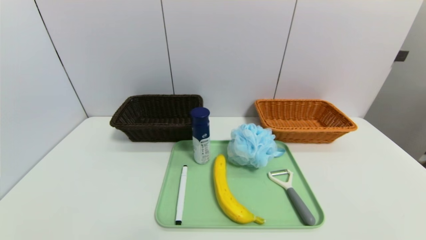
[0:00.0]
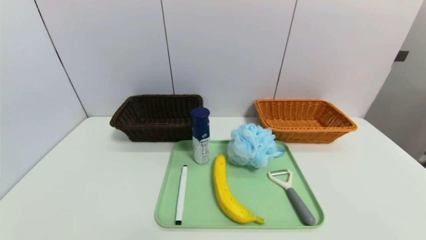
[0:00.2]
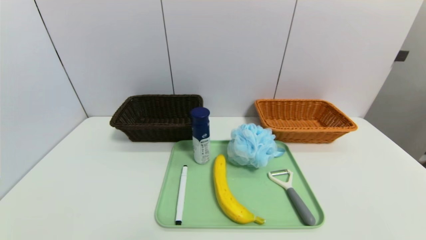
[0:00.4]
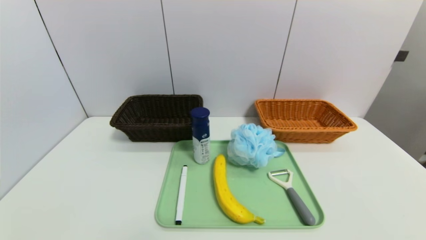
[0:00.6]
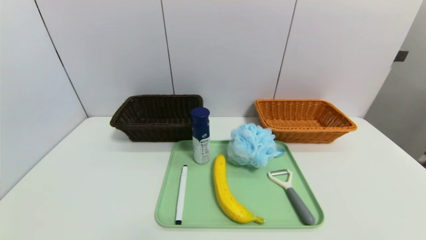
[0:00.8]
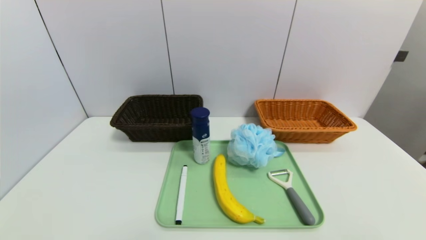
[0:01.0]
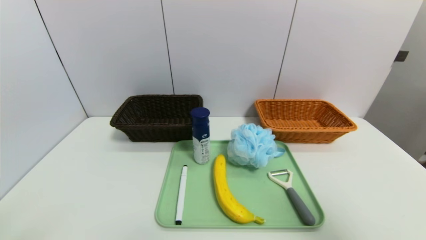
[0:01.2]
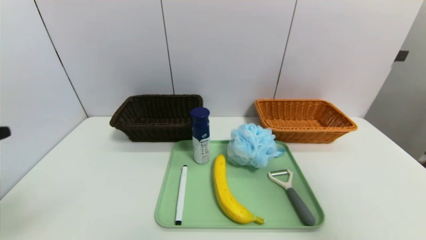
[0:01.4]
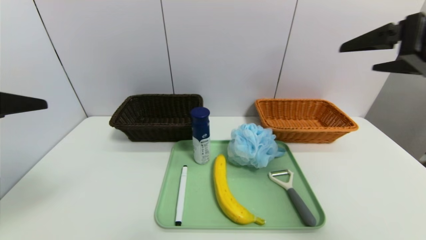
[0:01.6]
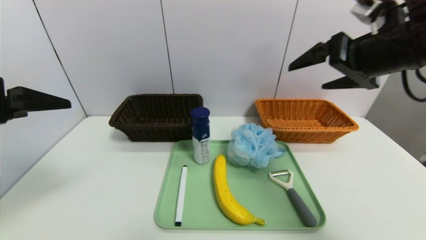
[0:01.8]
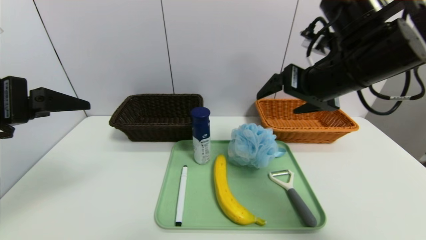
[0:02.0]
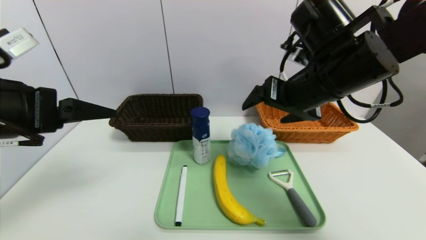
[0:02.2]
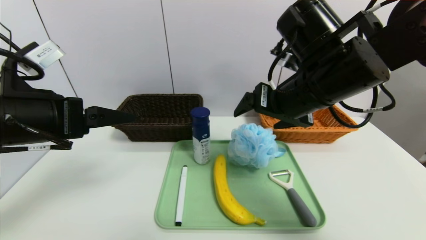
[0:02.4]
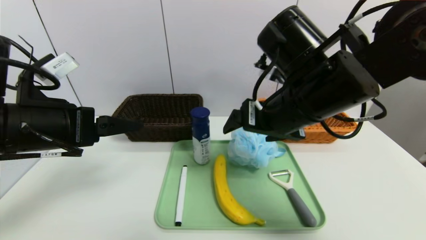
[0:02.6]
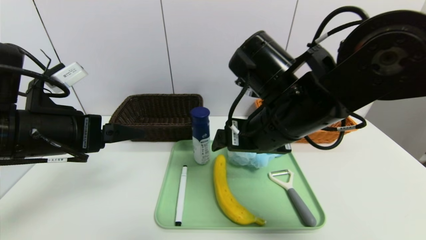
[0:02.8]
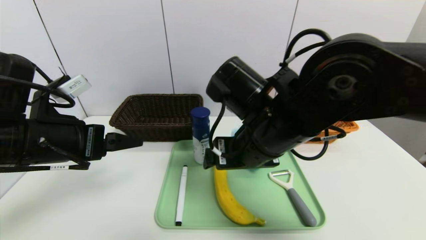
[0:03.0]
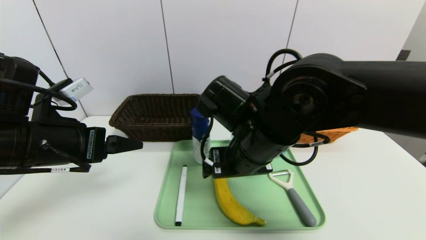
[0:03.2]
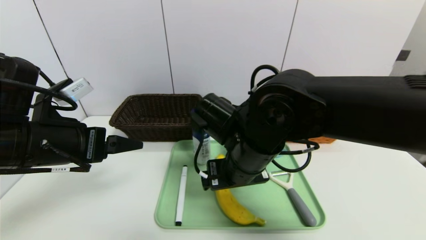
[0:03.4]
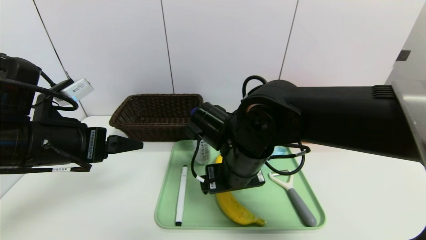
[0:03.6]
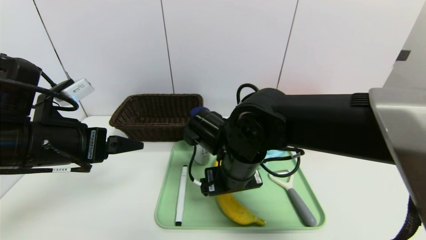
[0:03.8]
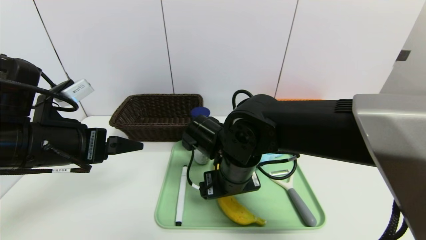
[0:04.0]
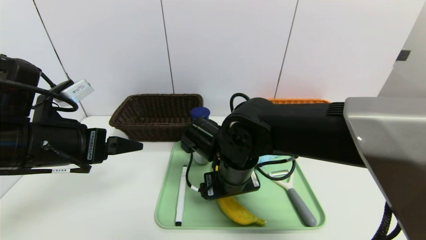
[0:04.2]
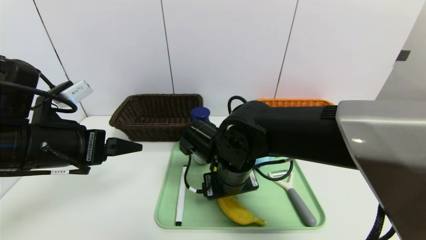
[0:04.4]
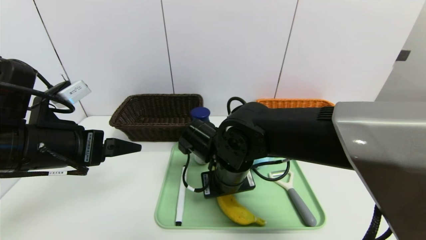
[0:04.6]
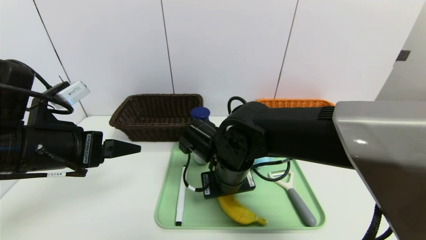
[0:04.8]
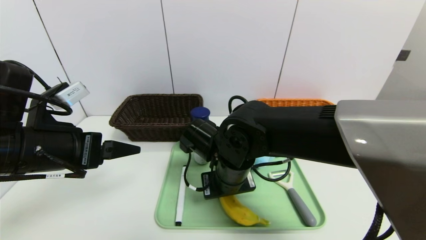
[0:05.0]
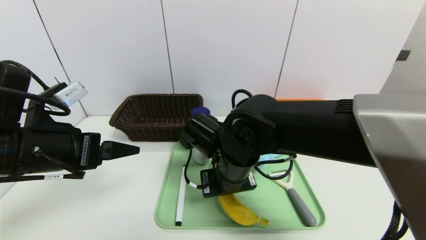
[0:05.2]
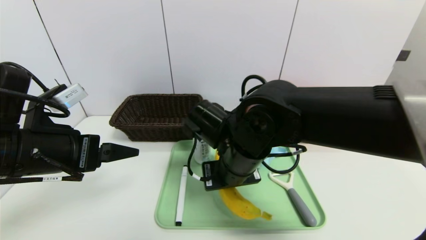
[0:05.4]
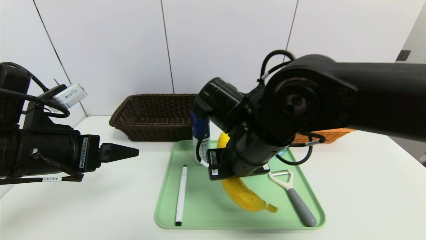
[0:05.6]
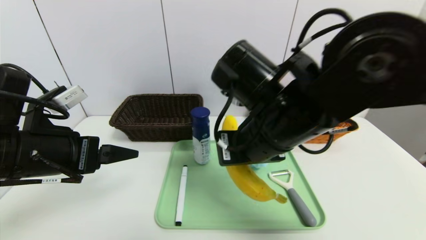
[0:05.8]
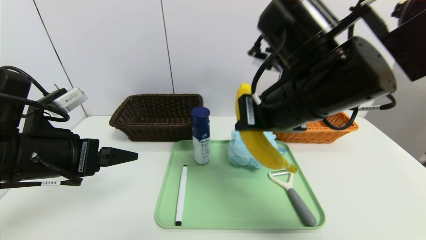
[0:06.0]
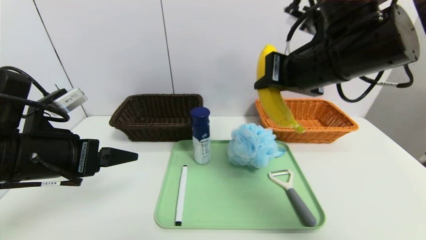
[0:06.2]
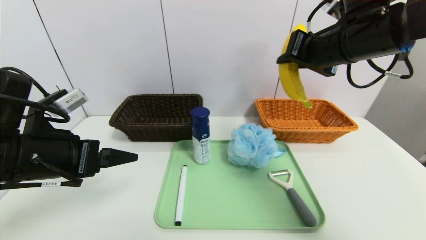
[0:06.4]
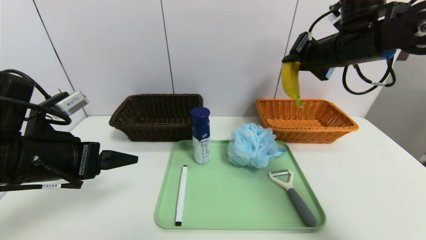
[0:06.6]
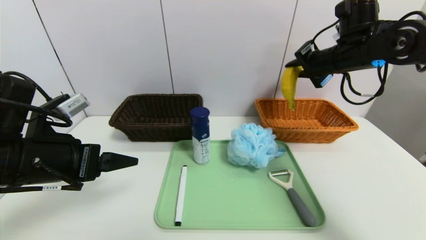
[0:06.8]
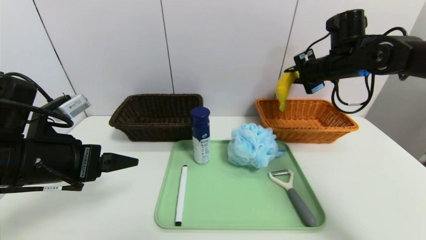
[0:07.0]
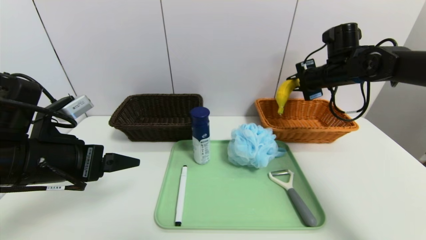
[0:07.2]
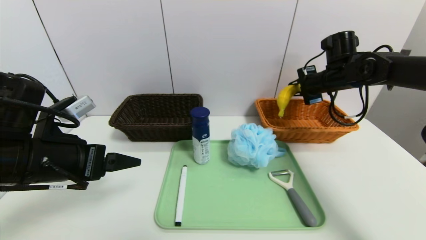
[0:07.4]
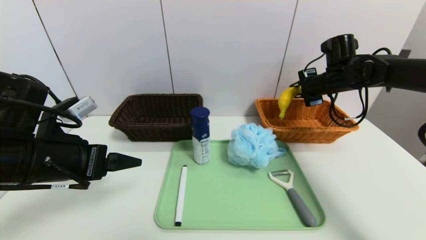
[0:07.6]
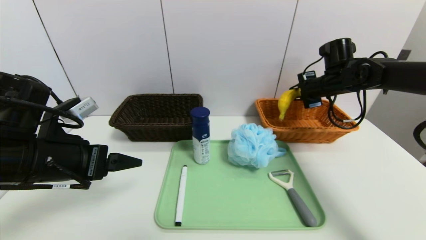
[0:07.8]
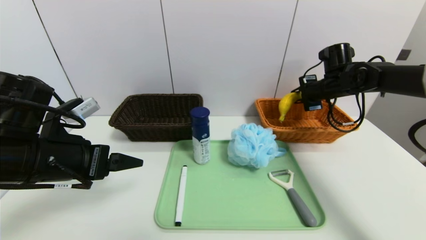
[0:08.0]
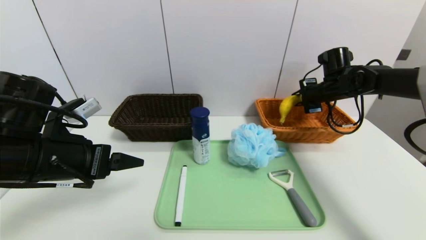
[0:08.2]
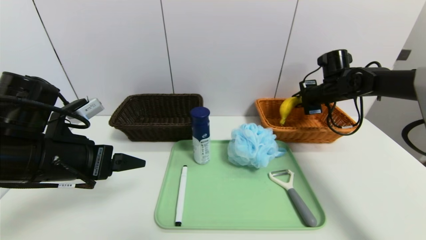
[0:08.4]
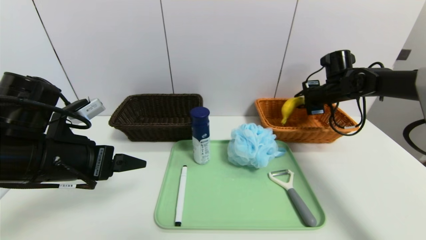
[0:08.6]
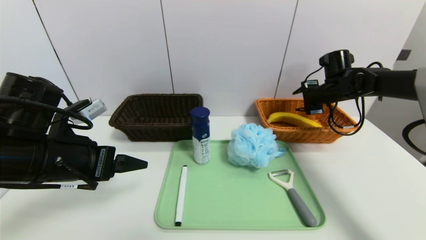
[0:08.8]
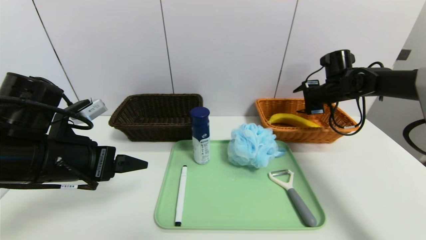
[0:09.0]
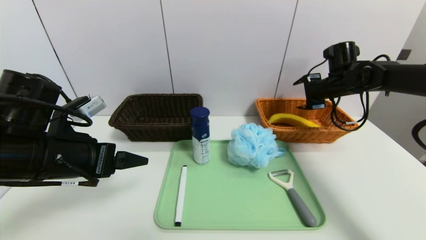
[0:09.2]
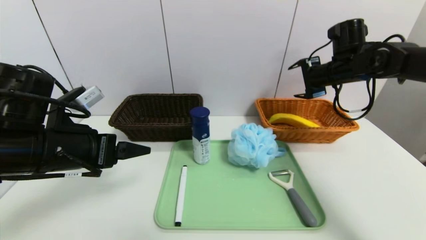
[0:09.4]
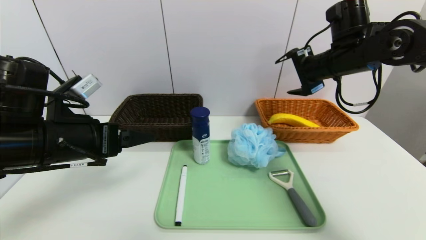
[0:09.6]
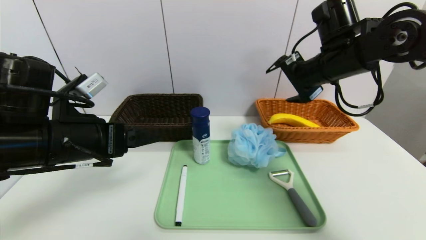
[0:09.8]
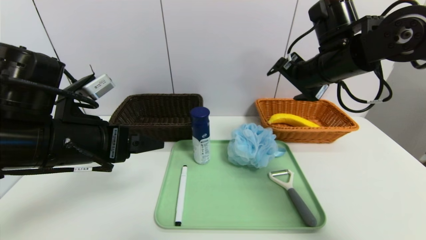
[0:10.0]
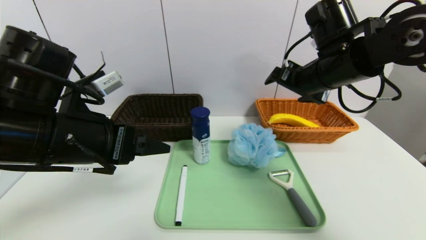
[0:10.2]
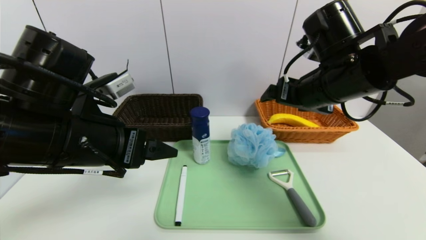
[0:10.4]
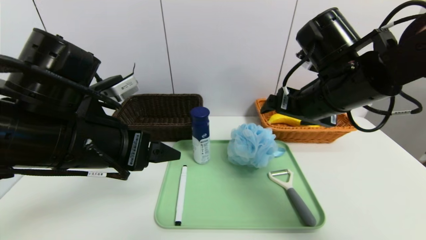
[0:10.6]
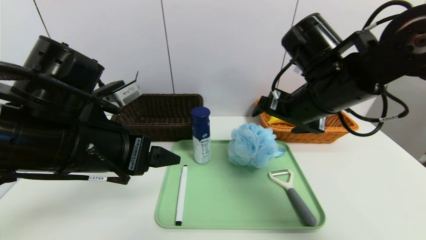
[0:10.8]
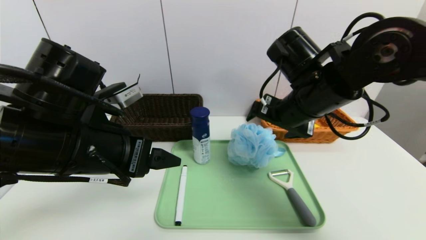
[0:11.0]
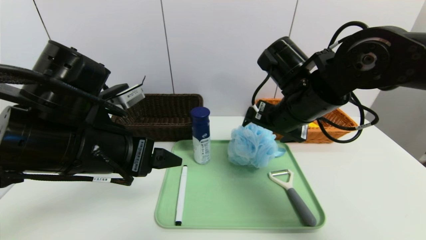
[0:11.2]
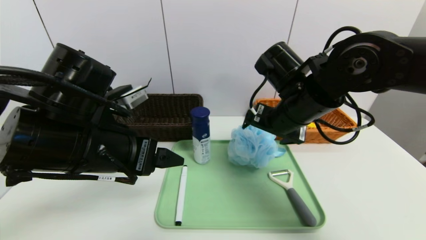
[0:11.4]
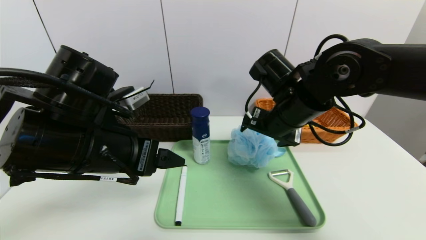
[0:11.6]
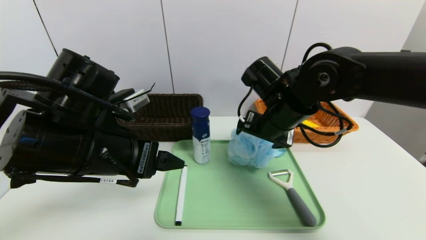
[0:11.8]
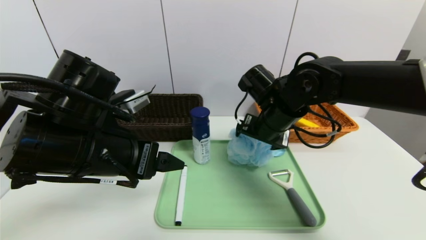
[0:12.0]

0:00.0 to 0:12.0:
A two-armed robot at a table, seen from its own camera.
Task of the whole recording: place the food in the right basket with the right gripper, and place the non food items in the left basket with the left gripper.
Step, 0:00.0 to 0:09.2: Grasp the banana and put it in the right basket.
0:00.0 to 0:01.6: The two grippers go roughly 35 cm upward and forward.
0:01.6 to 0:03.0: The right gripper is displaced to the left and downward by roughly 25 cm. Meanwhile the left gripper shifts approximately 15 cm downward, forward and to the right.
0:03.0 to 0:04.4: The right gripper heads downward, covering approximately 10 cm.
0:04.4 to 0:06.0: The right gripper travels upward and to the right by approximately 20 cm, and closes.
0:06.0 to 0:07.6: The right gripper is displaced forward and to the right by about 30 cm.
0:07.6 to 0:09.0: The right gripper opens.
0:09.0 to 0:10.4: The left gripper shifts about 5 cm to the right; the right gripper travels backward, to the left and upward by some 25 cm.
0:10.4 to 0:12.0: The right gripper goes approximately 10 cm downward, to the left and forward.

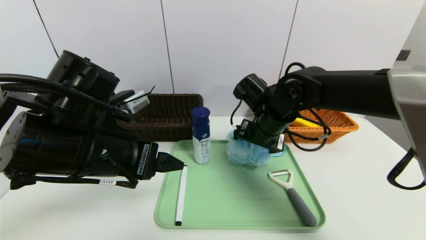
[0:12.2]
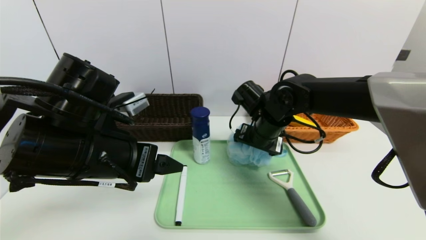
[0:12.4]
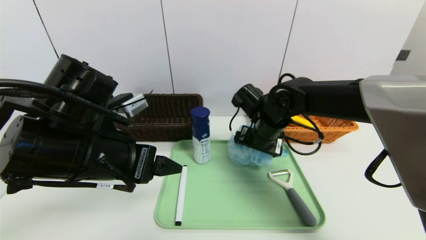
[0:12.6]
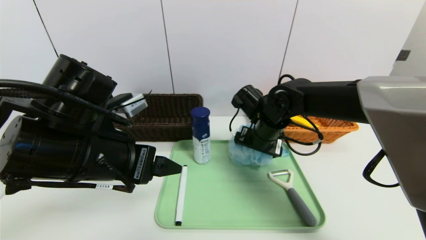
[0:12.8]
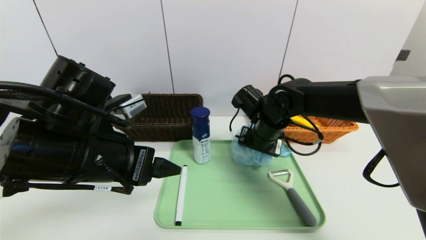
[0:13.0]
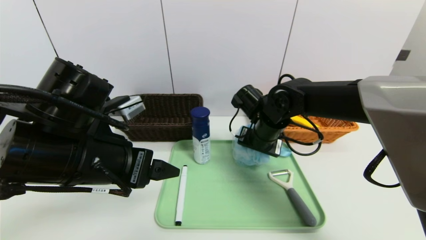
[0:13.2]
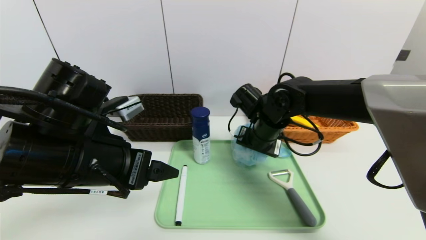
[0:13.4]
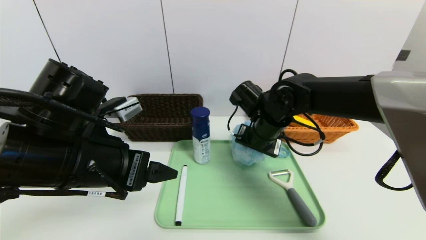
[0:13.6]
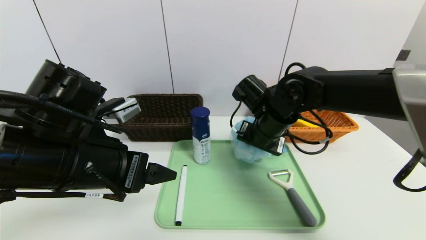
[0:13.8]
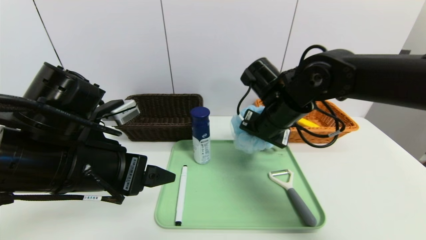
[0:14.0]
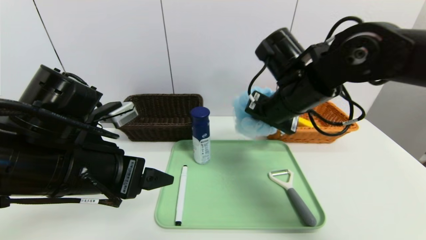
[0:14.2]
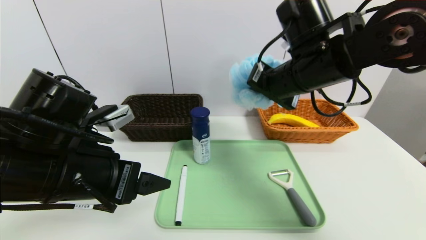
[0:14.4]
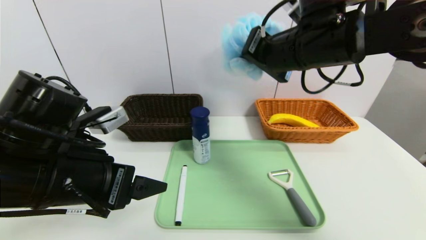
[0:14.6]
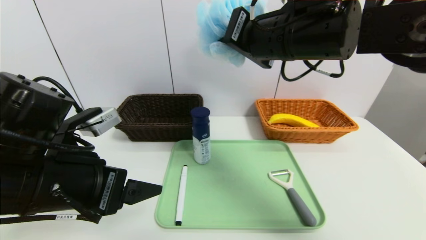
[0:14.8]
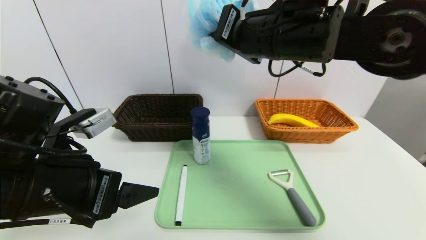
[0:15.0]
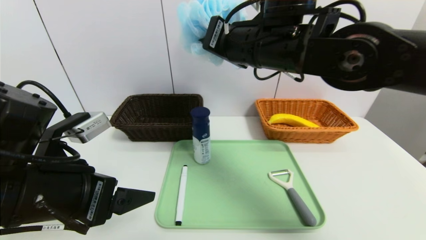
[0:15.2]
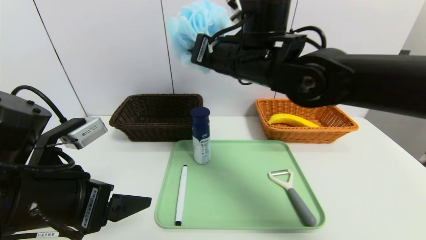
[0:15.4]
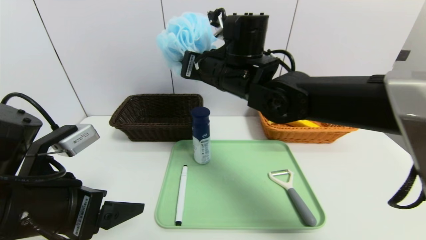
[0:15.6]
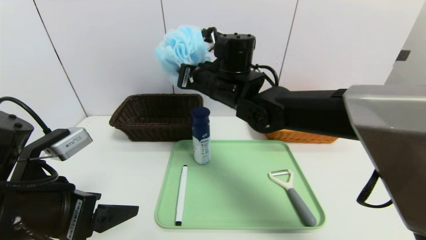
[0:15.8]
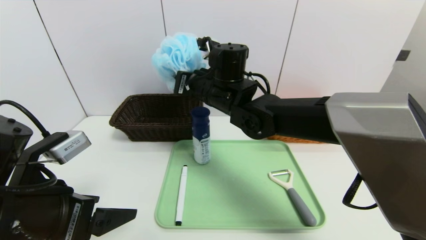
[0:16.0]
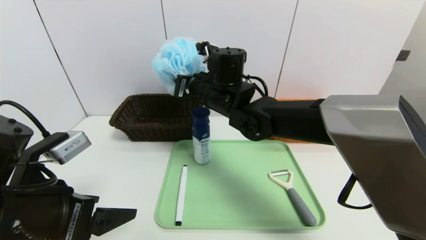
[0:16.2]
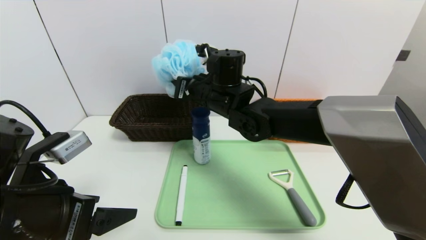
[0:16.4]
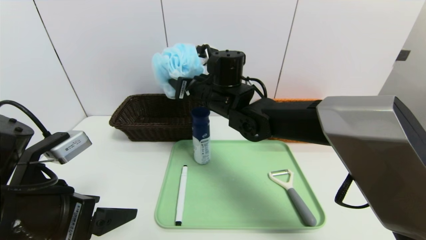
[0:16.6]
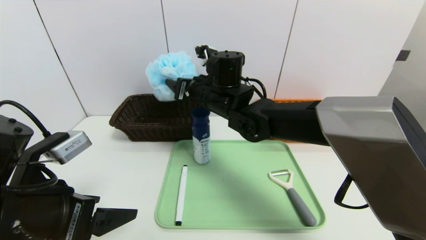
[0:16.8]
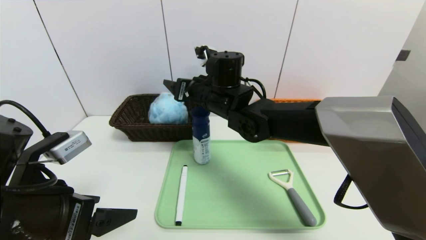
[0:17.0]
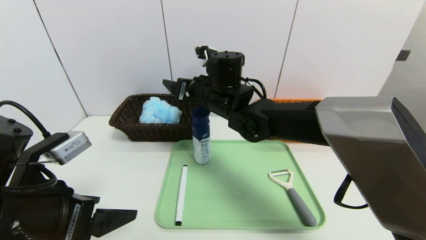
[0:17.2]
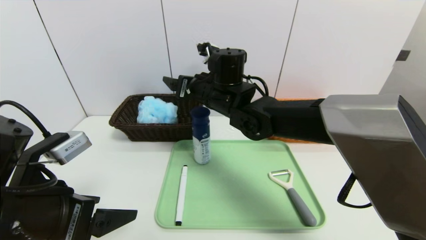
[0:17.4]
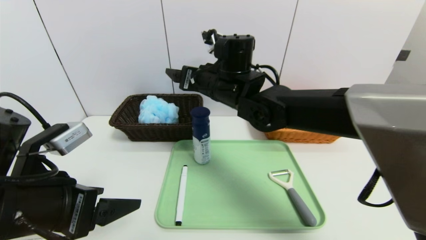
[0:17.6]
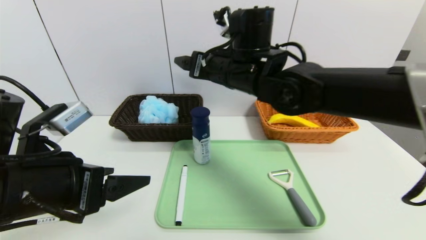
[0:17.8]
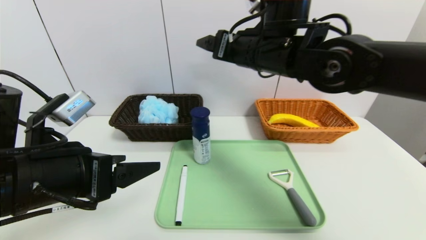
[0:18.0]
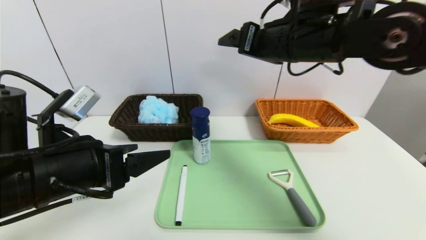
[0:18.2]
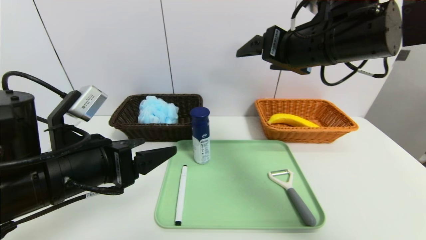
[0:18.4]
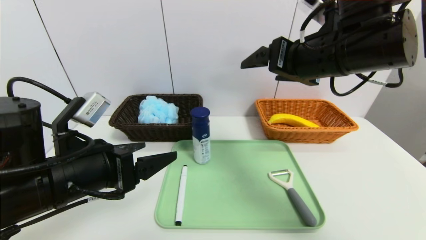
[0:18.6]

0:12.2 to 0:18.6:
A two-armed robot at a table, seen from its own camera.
Task of the whole recording: place the food in the right basket with the right gripper, and place the non food items in the left basket with the left gripper.
Step, 0:12.2 to 0:17.6: Grasp the bath ball and put it in the left basket.
0:12.2 to 0:13.8: The right gripper closes up.
0:13.8 to 0:15.4: The right gripper moves upward and to the left, about 15 cm. Meanwhile the left gripper ends up roughly 5 cm from where it was.
0:15.4 to 0:17.0: The right gripper shifts about 10 cm downward, and opens its fingers.
0:17.0 to 0:18.6: The right gripper shifts about 20 cm to the right, upward and backward. Meanwhile the left gripper moves approximately 5 cm.
